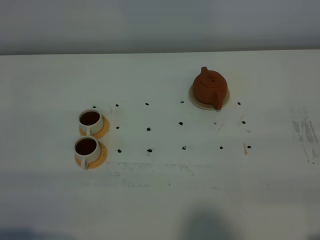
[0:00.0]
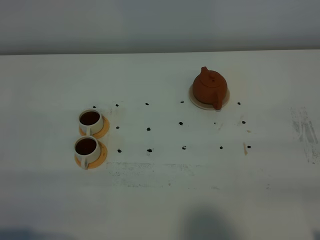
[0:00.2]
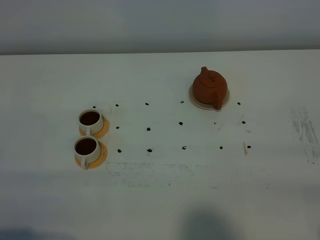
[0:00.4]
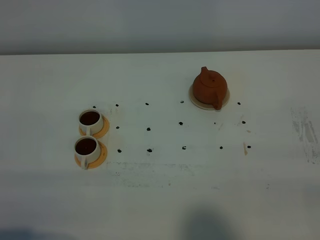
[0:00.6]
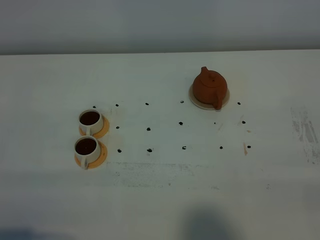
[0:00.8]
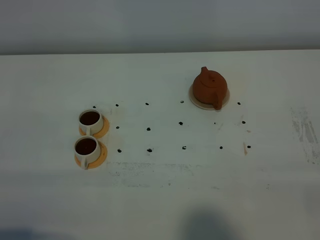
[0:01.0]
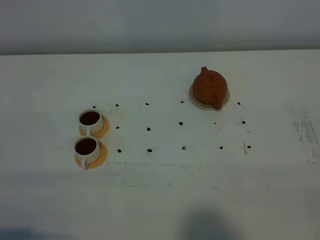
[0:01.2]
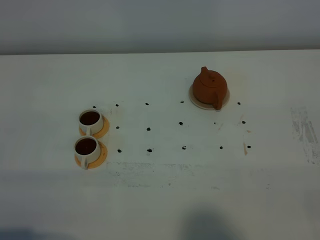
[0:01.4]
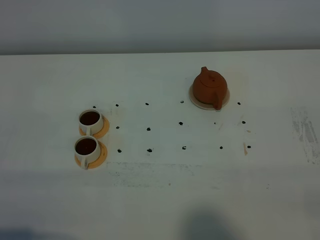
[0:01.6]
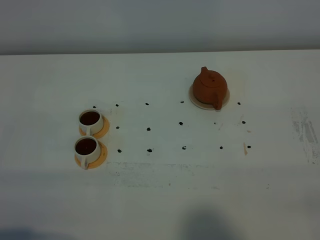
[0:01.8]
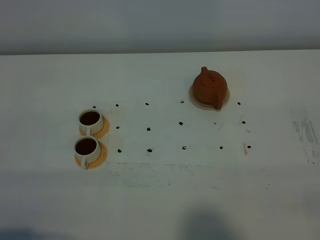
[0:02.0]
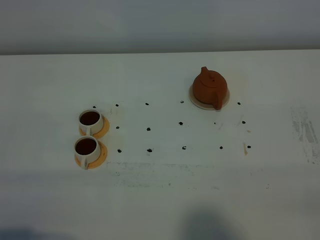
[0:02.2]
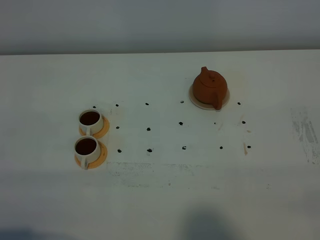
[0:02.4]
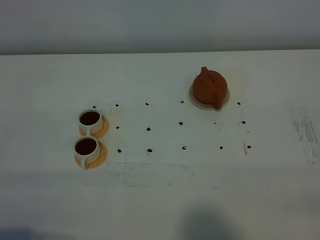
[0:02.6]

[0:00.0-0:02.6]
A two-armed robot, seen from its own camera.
Task of the whole recording: grasp the brown teapot and pour the tea into the two white teacups one by one, put the brown teapot back in its original place.
0:01.2 to 0:02.6: Both grippers stay about where they are.

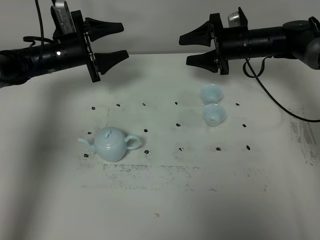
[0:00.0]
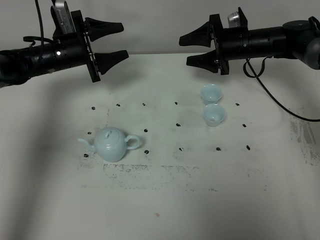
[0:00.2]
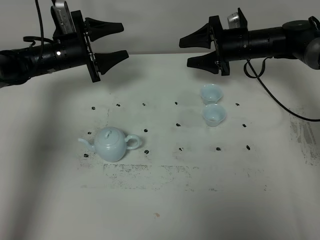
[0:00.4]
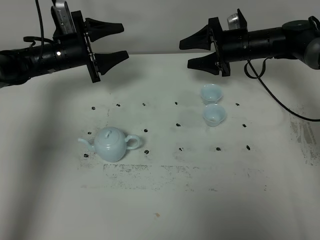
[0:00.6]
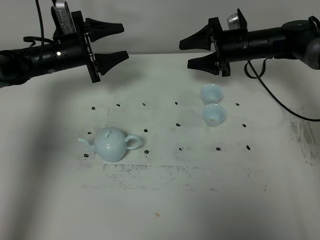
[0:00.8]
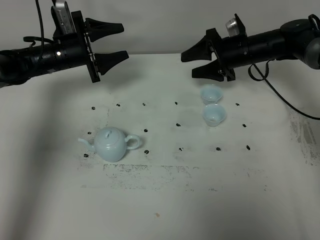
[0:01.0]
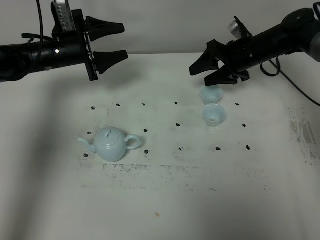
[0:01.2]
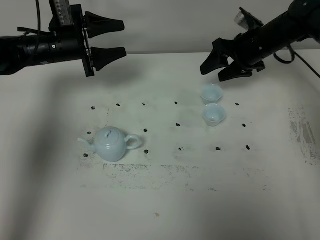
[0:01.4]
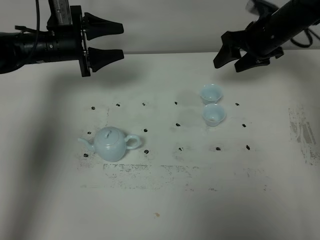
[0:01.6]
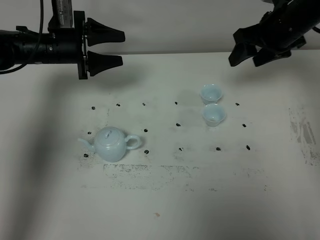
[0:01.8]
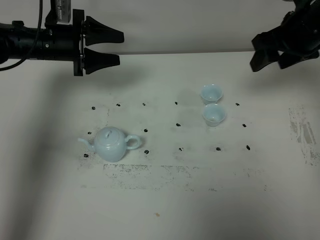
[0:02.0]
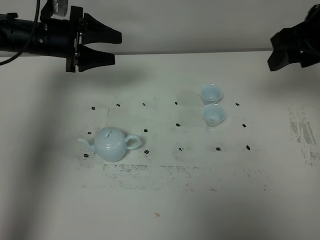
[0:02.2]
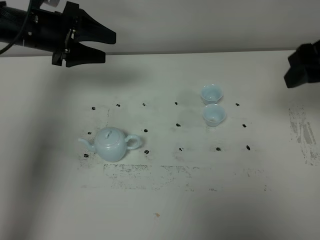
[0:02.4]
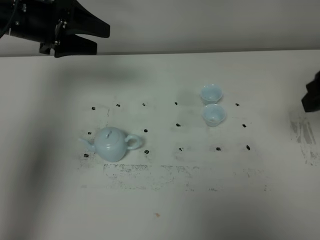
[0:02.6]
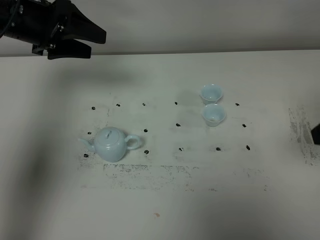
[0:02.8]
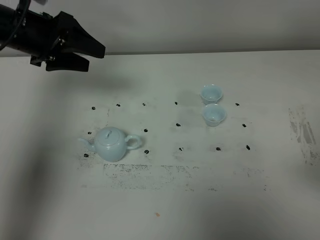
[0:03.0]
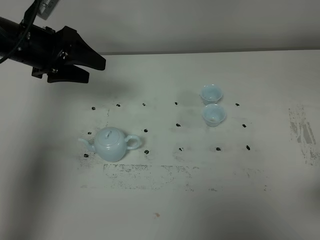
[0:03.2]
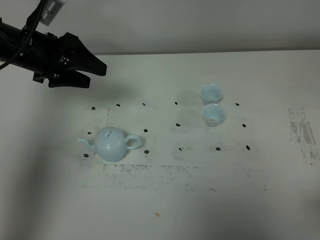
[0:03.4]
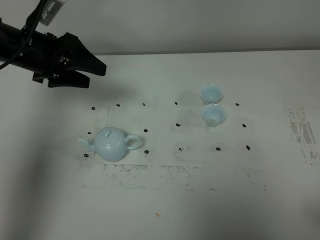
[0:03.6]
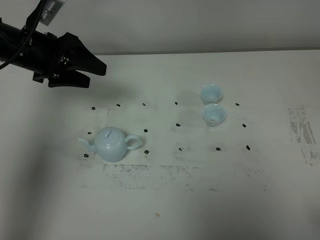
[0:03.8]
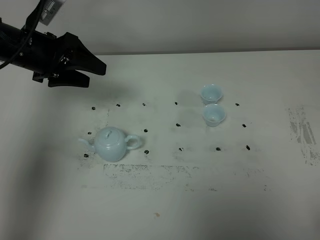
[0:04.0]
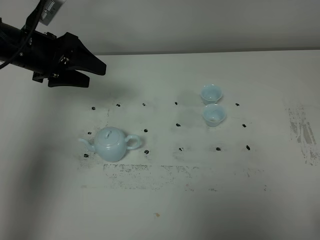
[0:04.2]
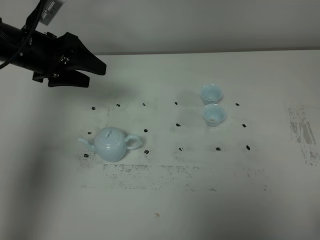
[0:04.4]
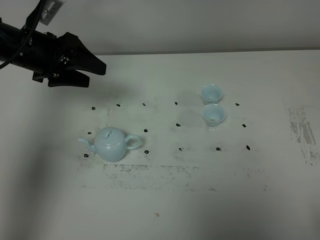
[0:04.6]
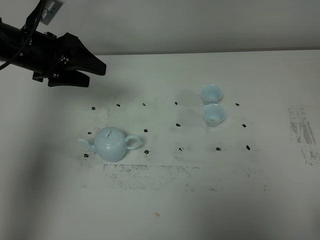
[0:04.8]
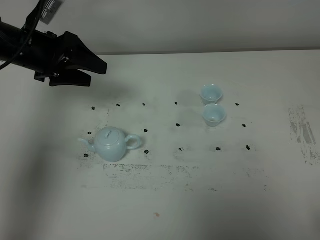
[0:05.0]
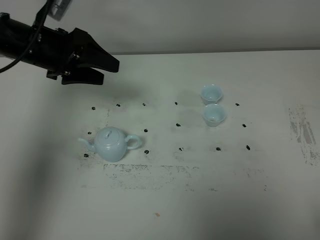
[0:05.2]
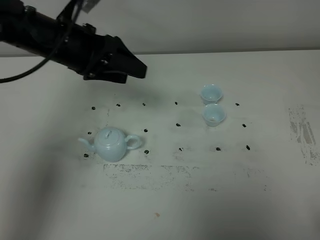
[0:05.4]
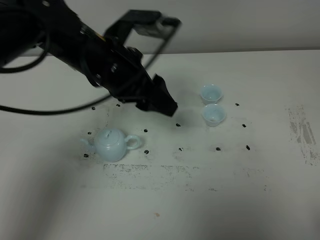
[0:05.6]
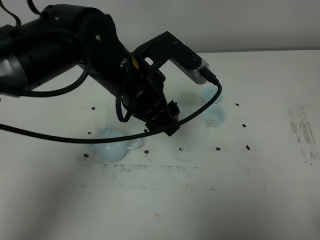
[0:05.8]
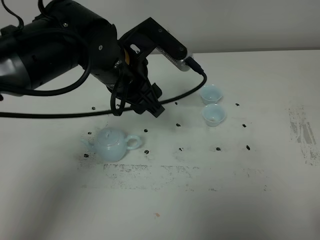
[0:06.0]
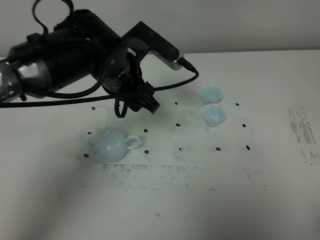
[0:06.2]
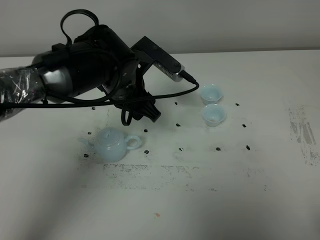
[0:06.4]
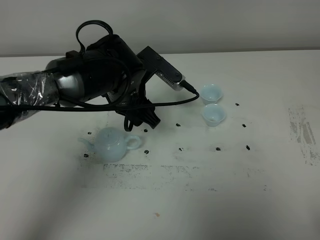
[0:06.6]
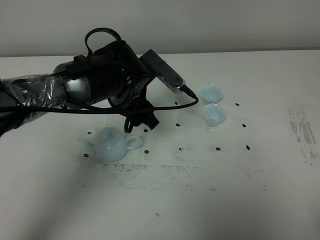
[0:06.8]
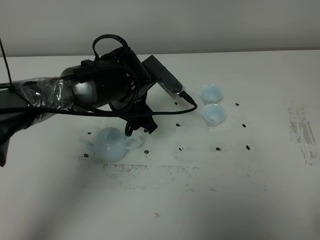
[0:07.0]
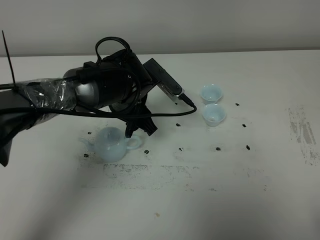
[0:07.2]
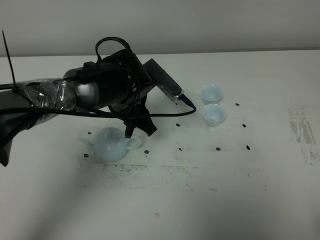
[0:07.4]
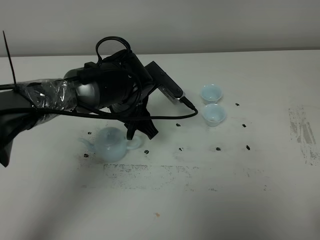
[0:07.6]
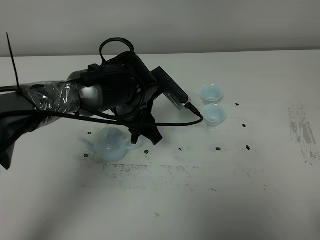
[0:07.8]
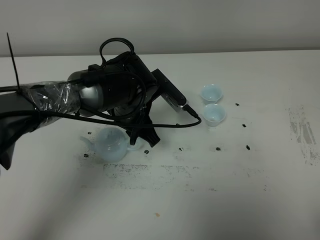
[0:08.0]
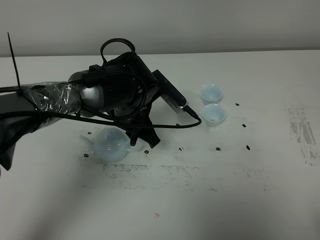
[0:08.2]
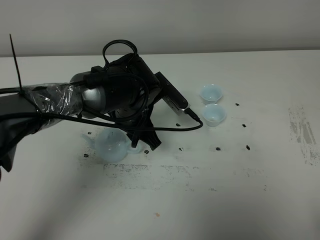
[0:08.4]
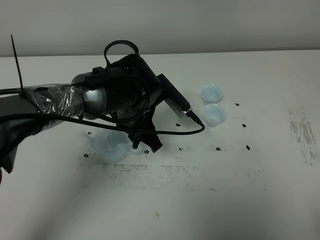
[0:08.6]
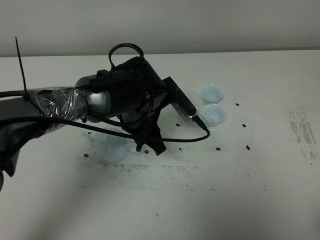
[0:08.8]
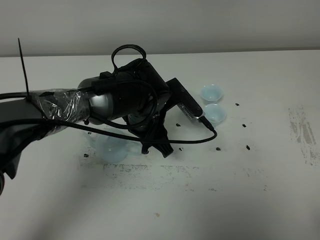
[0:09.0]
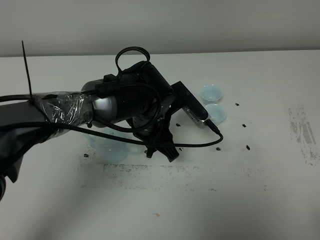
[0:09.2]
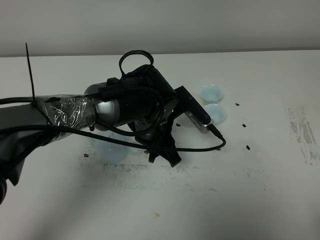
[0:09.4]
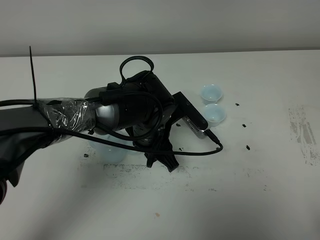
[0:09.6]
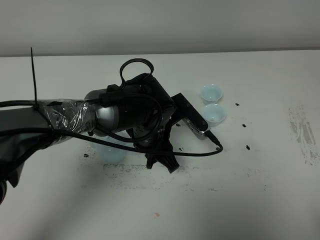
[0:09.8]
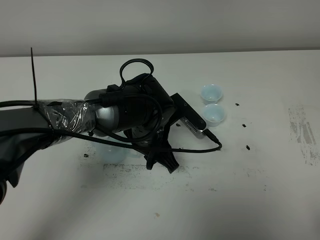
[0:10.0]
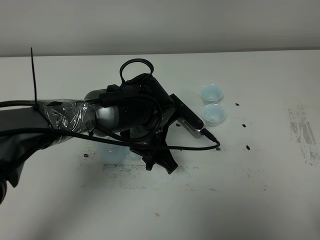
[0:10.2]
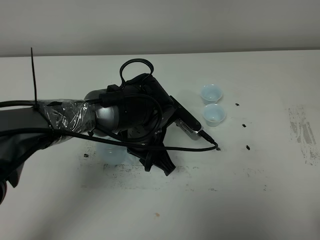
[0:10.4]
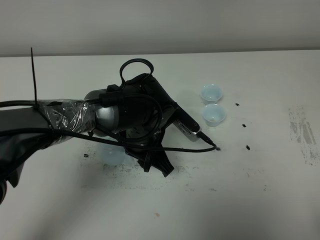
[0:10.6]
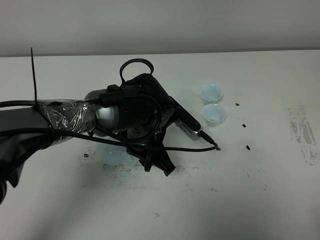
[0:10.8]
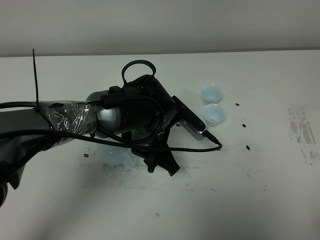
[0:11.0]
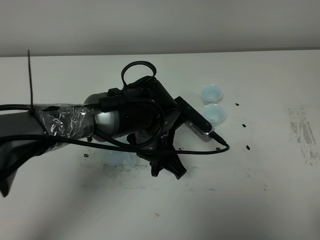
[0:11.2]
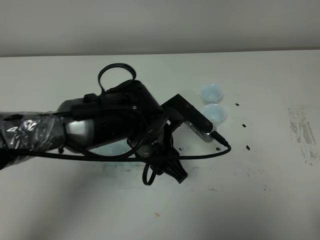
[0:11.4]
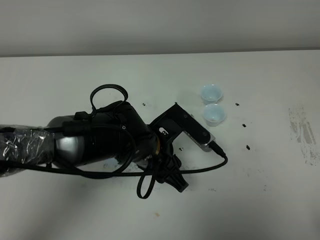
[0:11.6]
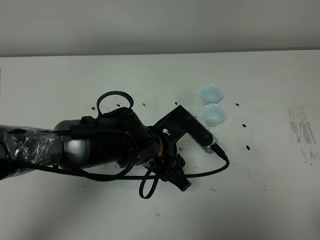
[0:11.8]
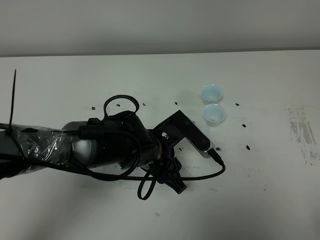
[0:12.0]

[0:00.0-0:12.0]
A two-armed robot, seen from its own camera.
Task of the whole recording: grasp the blue porcelain teapot and pour the tea into the two blue porcelain teacups one by one, put the blue porcelain teapot back in its original place.
0:00.0 to 0:01.6: The right gripper travels upward by some 5 cm.
0:01.6 to 0:03.0: The right gripper shifts about 35 cm backward. The left gripper travels upward and backward by about 10 cm.
0:03.0 to 0:04.4: The right gripper is displaced backward and downward by about 15 cm.
0:04.4 to 0:06.0: The left gripper heads to the right, covering some 15 cm.
0:06.0 to 0:07.6: The left gripper travels downward by approximately 10 cm.
0:07.6 to 0:09.0: The grippers move only a little.
0:09.0 to 0:10.4: The grippers move only a little.

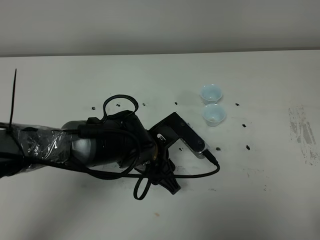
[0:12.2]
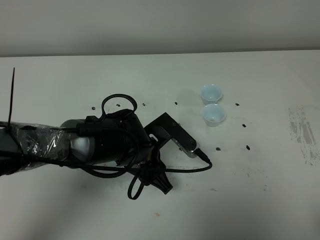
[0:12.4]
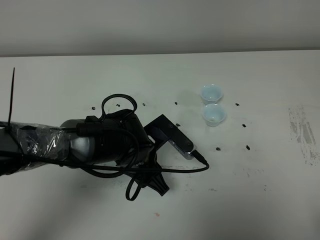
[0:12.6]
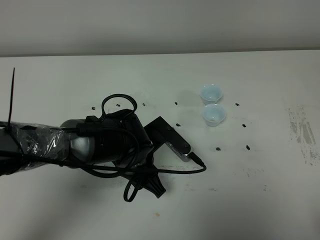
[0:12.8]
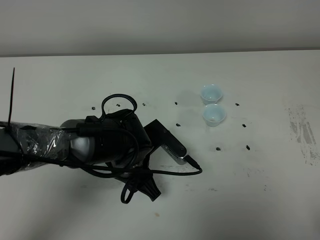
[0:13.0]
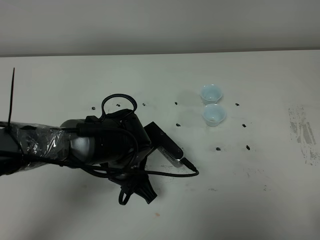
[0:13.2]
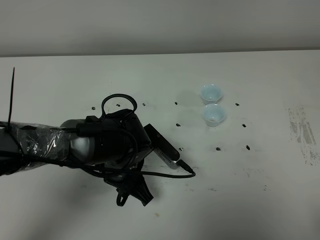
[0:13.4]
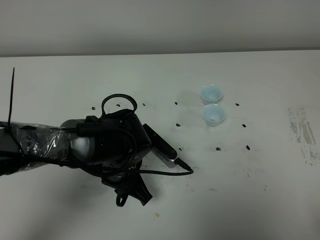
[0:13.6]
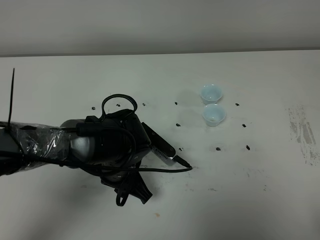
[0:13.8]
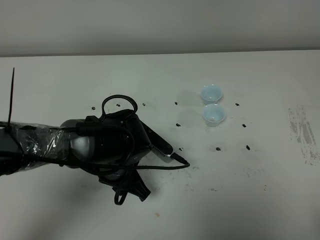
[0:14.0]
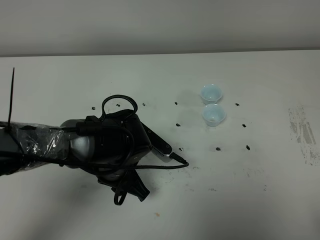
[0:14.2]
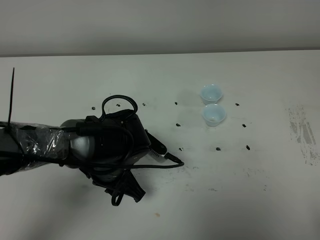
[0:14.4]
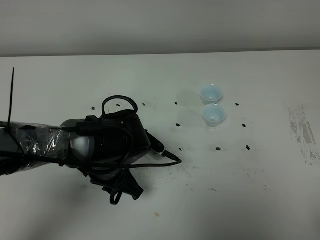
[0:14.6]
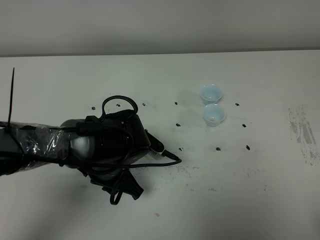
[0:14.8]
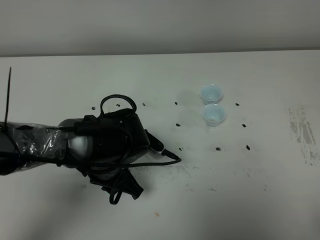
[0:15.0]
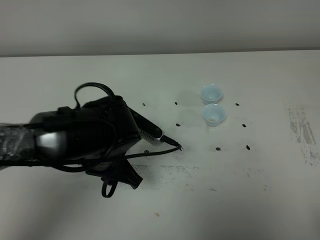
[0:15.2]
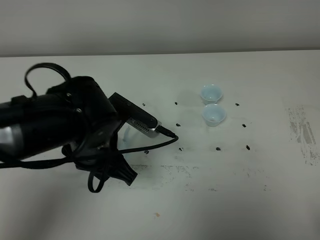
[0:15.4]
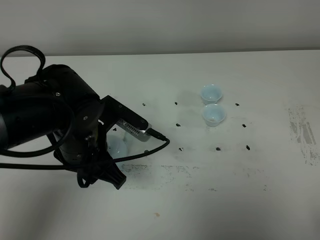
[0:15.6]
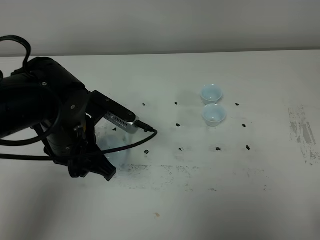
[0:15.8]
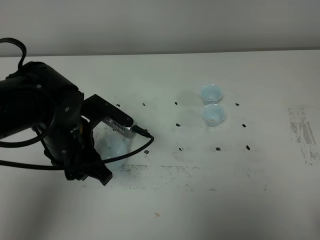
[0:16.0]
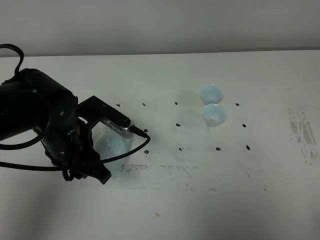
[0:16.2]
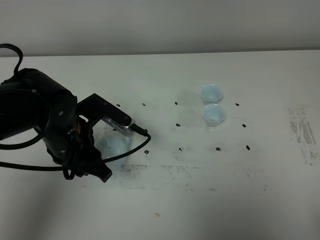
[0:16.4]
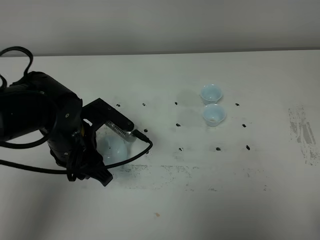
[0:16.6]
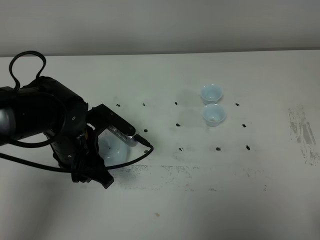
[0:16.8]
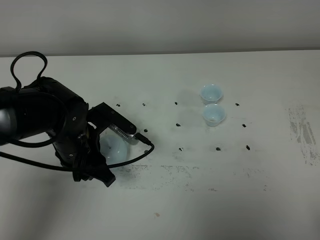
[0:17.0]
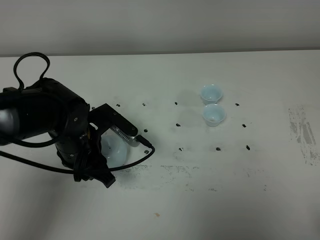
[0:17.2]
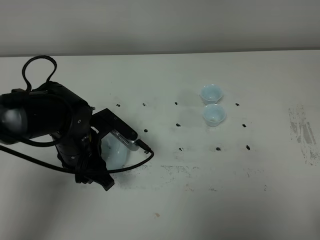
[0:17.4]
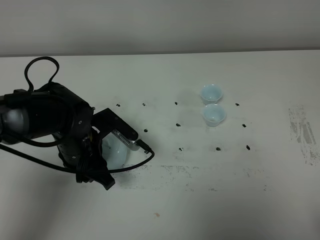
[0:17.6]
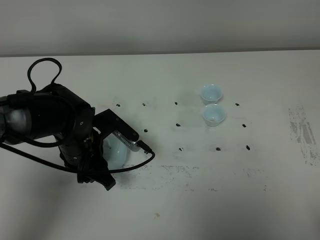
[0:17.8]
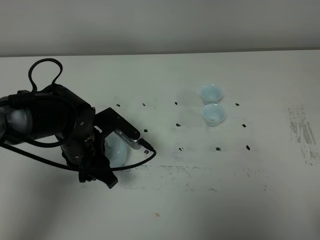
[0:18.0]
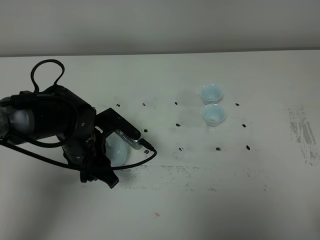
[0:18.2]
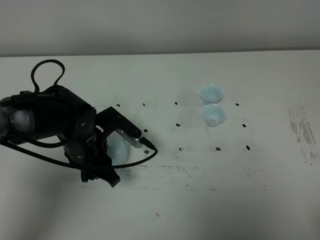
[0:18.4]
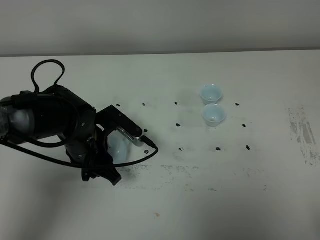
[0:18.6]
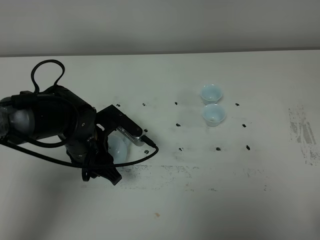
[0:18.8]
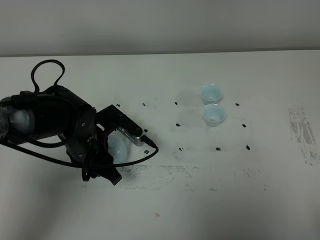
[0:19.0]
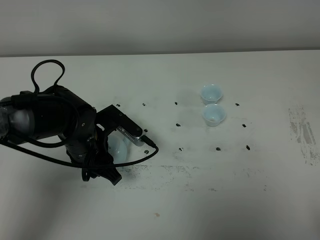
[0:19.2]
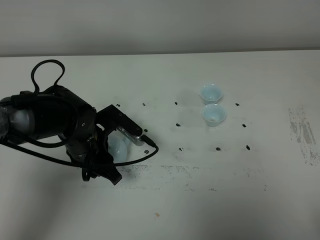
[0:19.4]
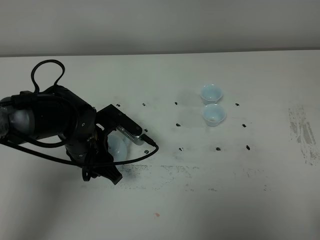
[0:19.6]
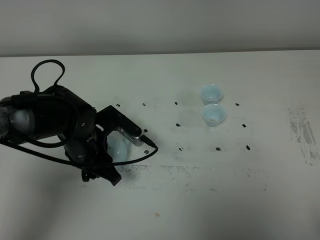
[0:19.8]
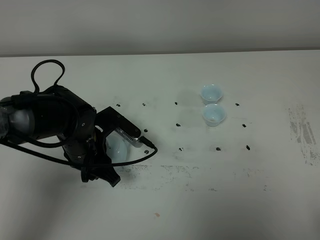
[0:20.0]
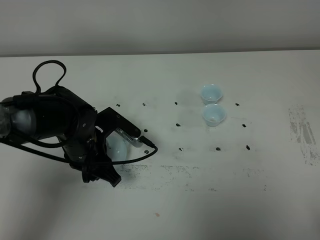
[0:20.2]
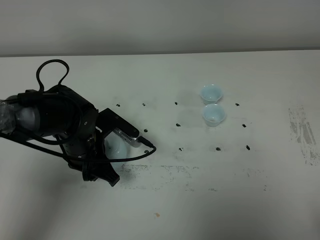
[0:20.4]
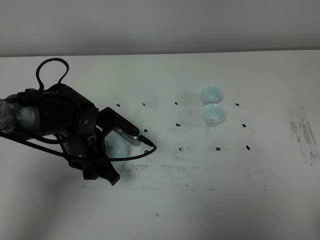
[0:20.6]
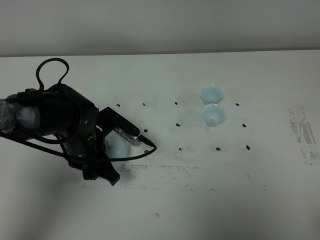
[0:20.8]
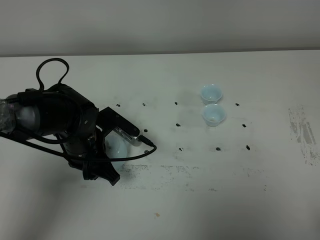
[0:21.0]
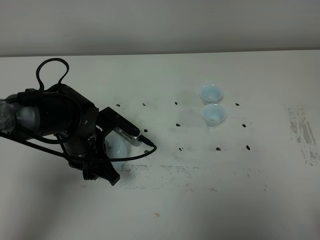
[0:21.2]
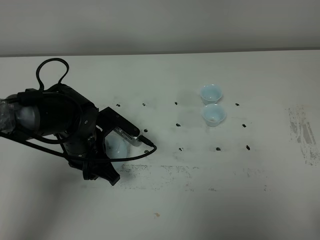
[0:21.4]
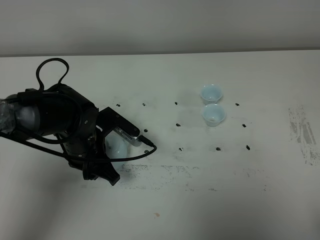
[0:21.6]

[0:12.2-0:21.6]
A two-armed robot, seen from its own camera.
Task of the whole recording: grasp the blue porcelain teapot and pour the tea into the two blue porcelain teacups one by one, put the blue porcelain teapot back in its original place.
0:13.8 to 0:15.4: The left gripper moves upward, about 10 cm.
0:15.4 to 0:17.0: The left gripper shifts by some 10 cm.
0:17.0 to 0:18.4: There are only small adjustments of the grippers.
0:18.4 to 0:21.6: The two grippers keep their place.
